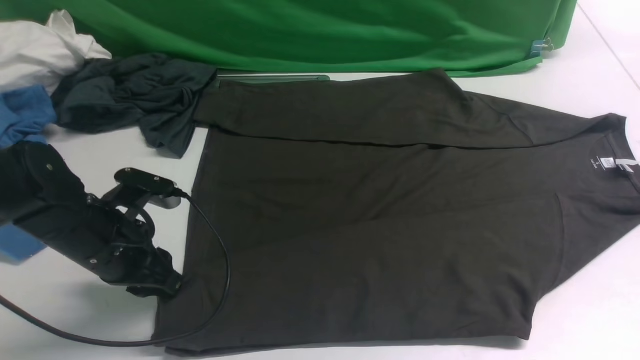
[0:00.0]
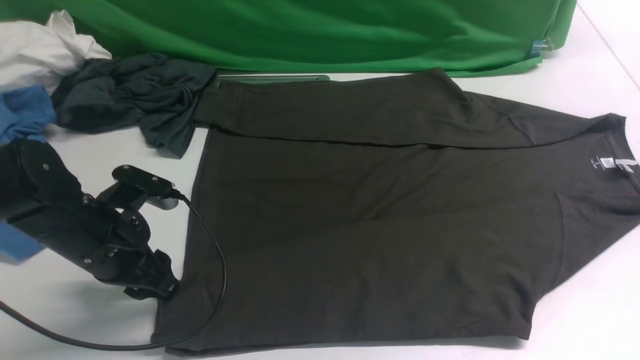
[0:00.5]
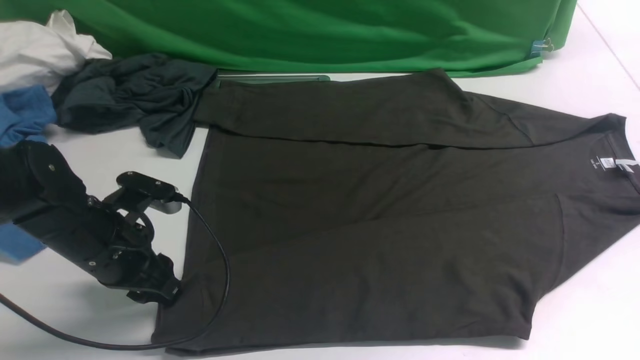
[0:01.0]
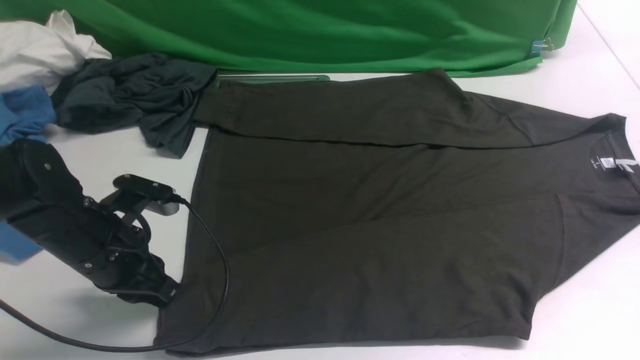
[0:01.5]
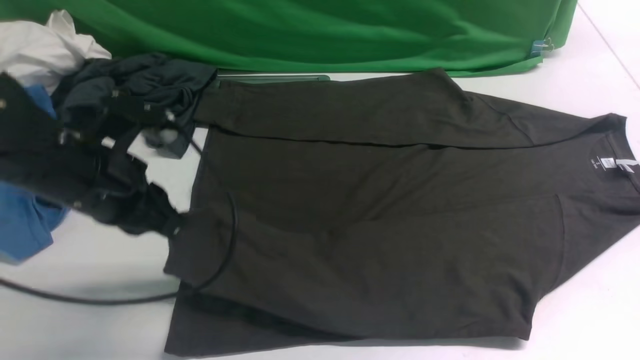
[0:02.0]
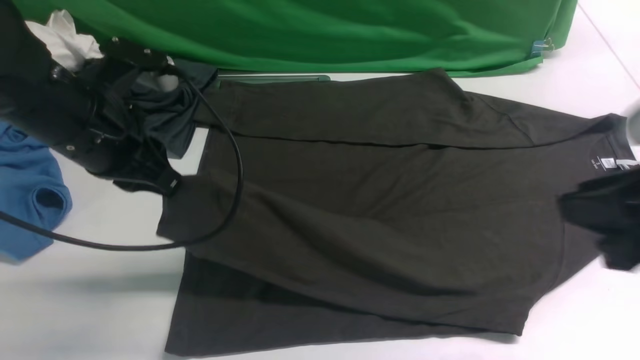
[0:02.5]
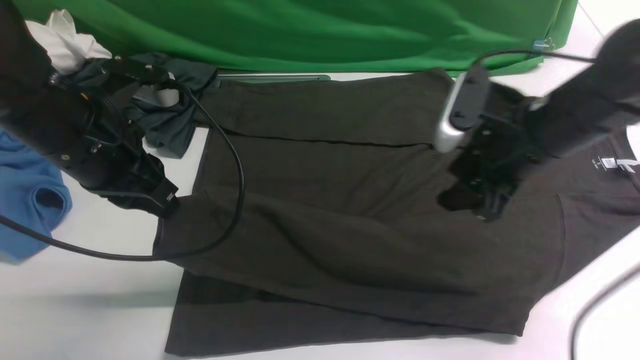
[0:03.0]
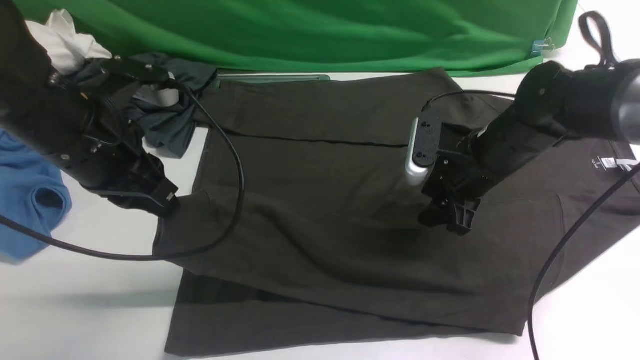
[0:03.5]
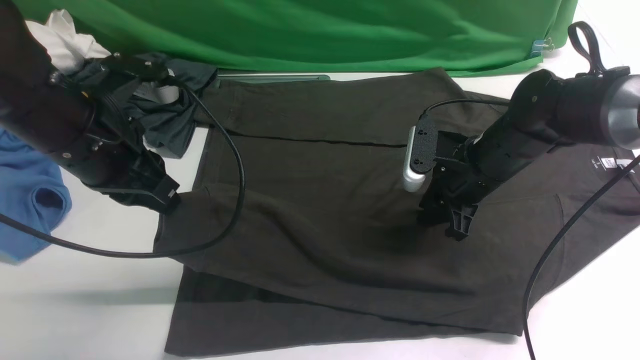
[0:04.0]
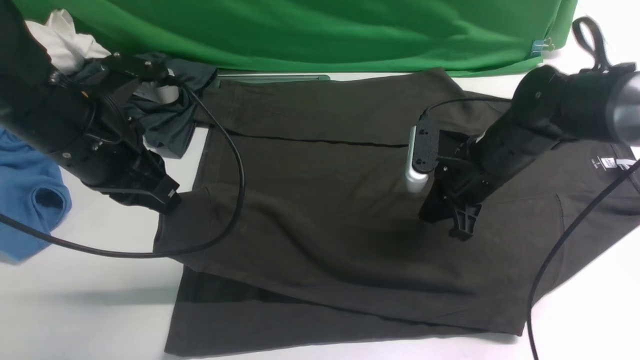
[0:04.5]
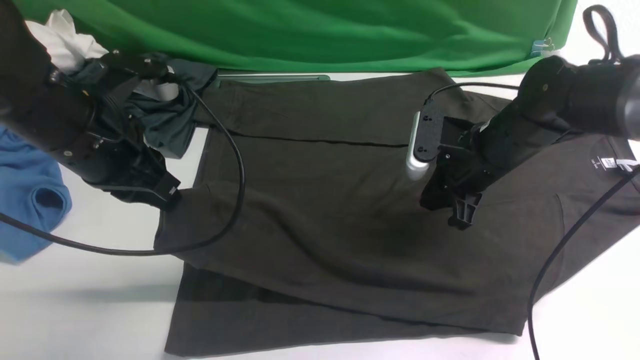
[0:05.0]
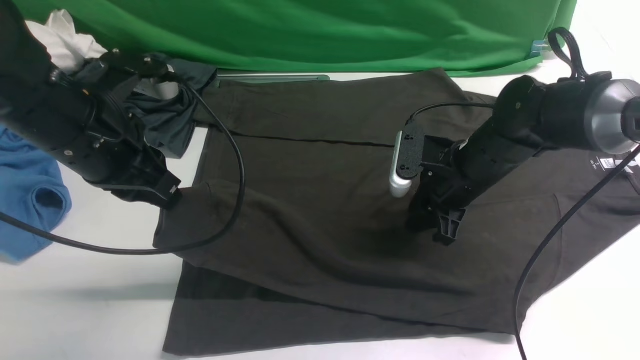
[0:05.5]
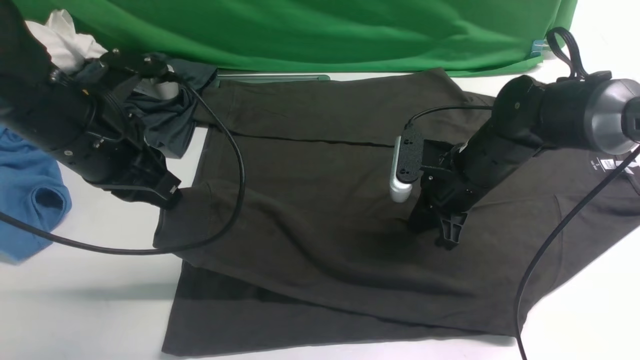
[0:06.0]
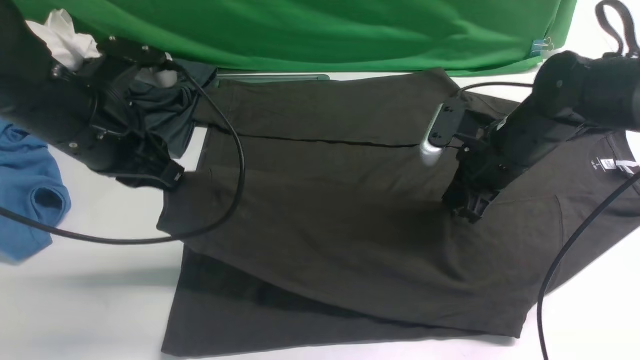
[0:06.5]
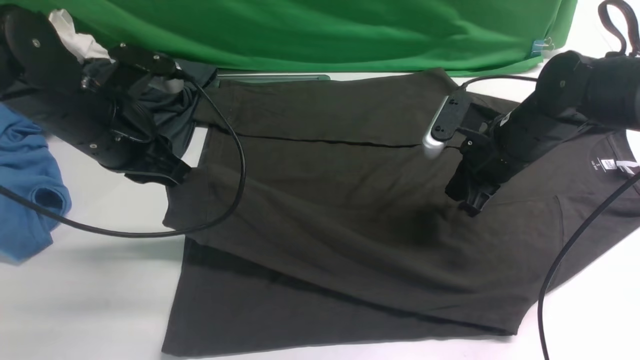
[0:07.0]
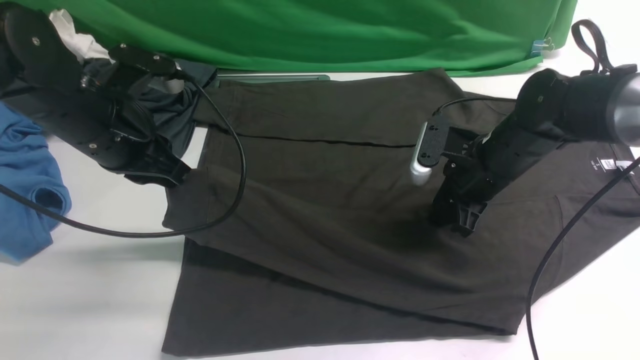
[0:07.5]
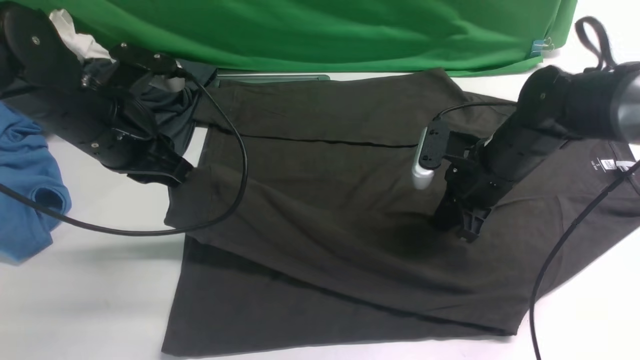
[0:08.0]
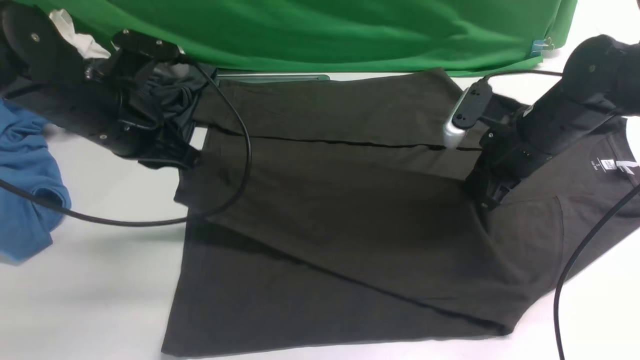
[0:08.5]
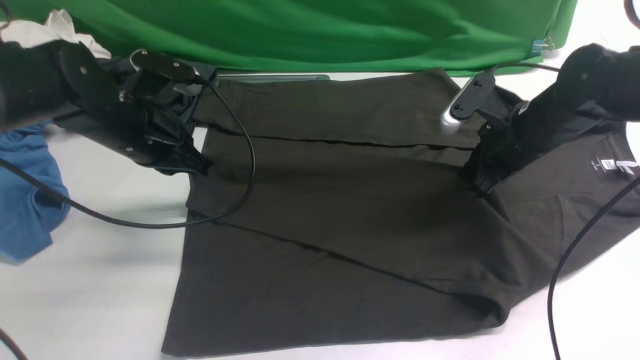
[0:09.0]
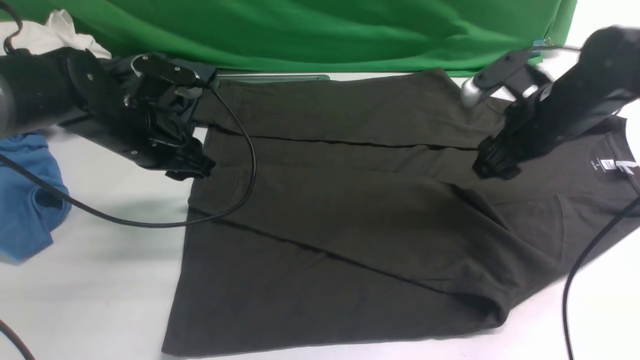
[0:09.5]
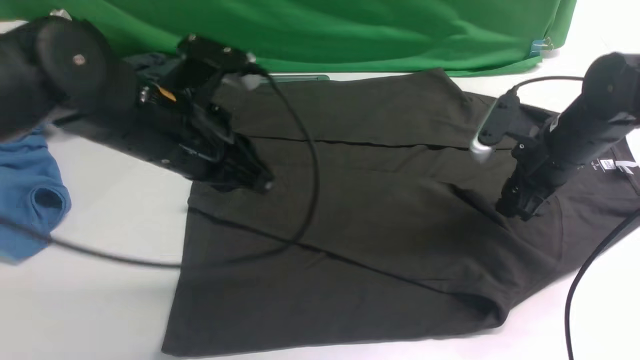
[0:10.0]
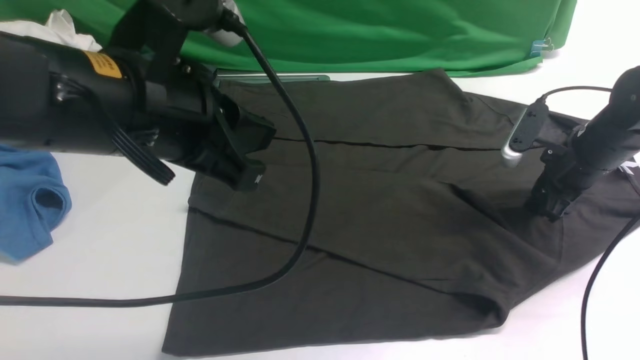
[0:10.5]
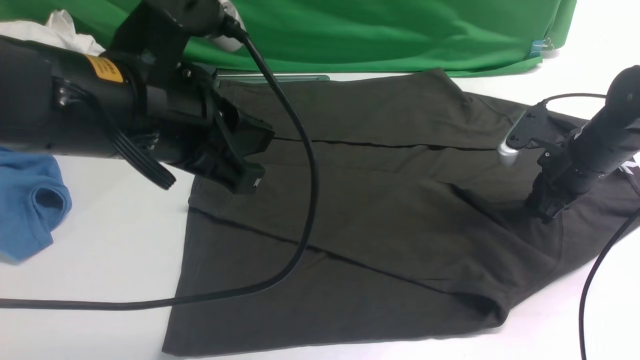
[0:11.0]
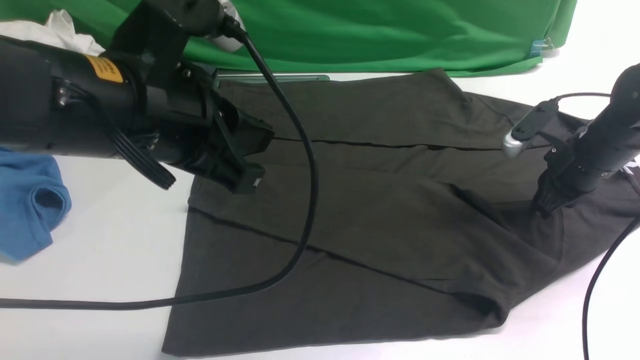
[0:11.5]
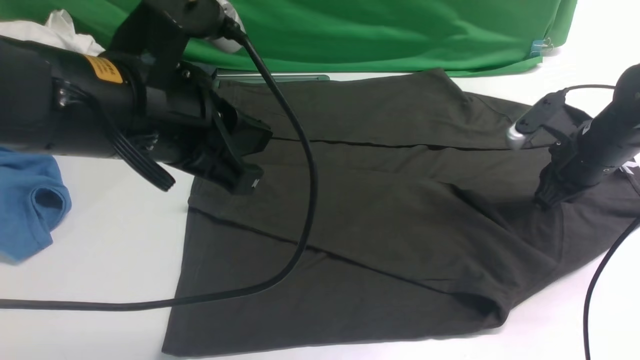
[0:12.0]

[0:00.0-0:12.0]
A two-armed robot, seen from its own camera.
Step, 0:01.5 to 0:09.5: use the left arm to drag and place the cuff at the centered position on the left edge of the fabric.
0:00.0 to 0:02.0: The left gripper goes approximately 10 cm upward, and closes.
0:02.0 to 0:04.0: The right gripper shifts roughly 35 cm forward and downward, and opens, then closes once more.
0:04.0 to 0:06.0: There are only small adjustments of the grippers.
0:06.0 to 0:08.0: The right gripper opens, then closes again.
0:08.0 to 0:10.0: Both grippers travel together to the right, some 5 cm. The right gripper opens up. The left gripper opens and closes again.
0:10.0 to 0:12.0: The right gripper closes; the left gripper heads backward and upward, covering roughly 10 cm.

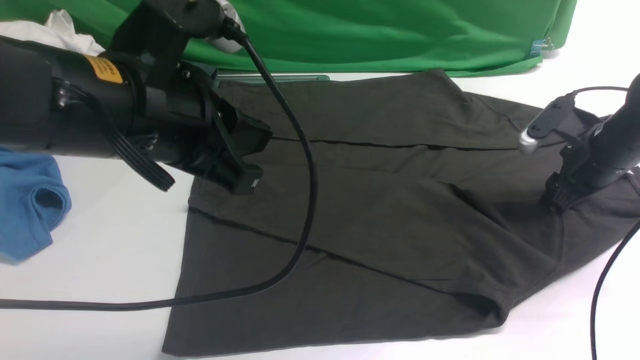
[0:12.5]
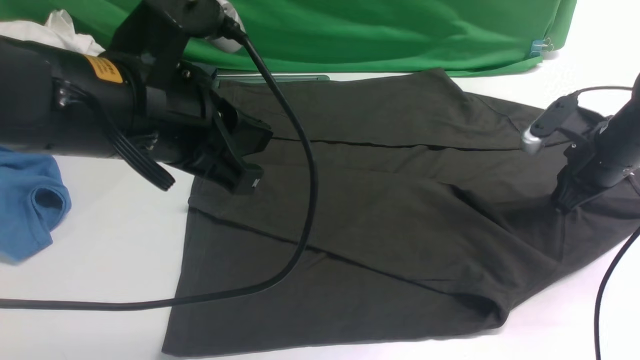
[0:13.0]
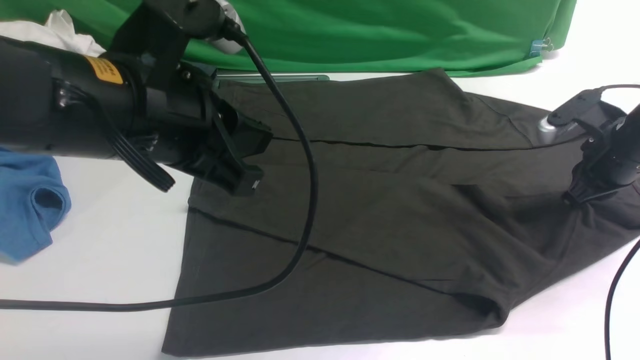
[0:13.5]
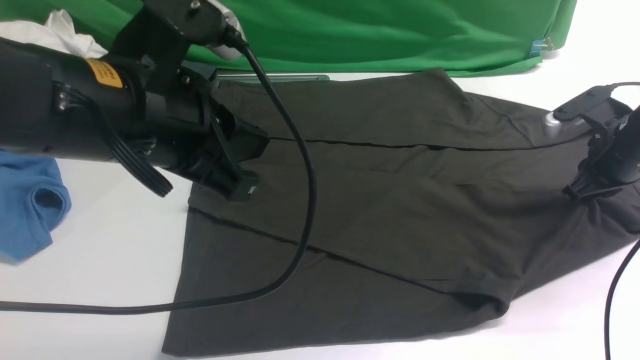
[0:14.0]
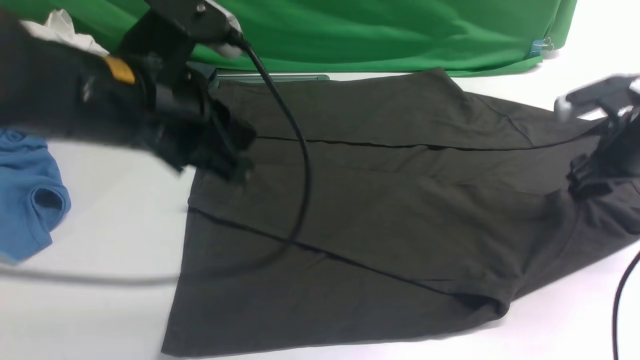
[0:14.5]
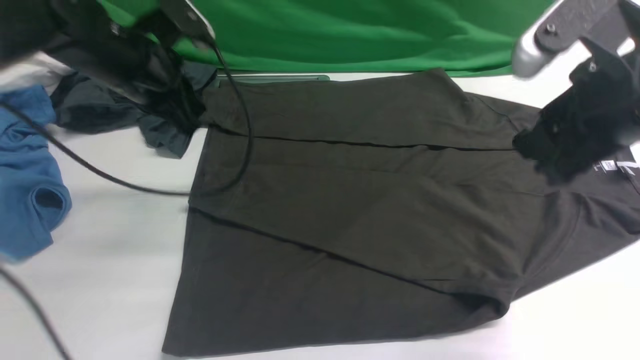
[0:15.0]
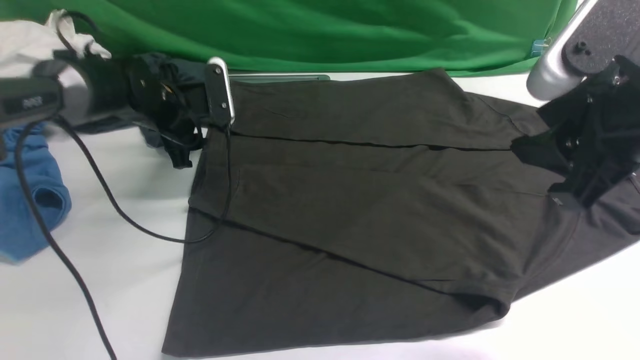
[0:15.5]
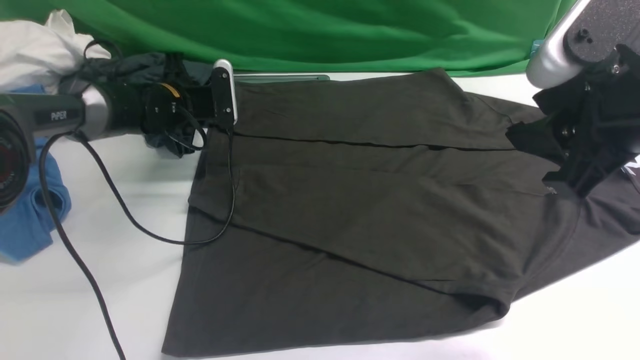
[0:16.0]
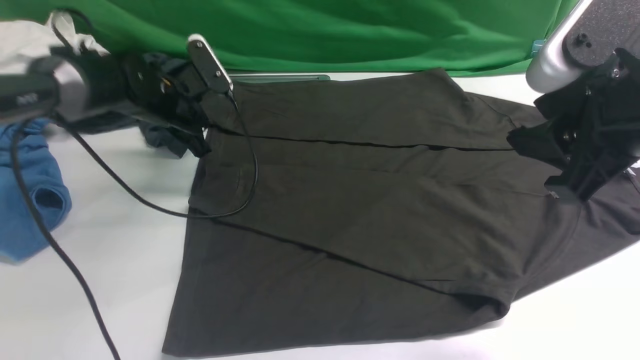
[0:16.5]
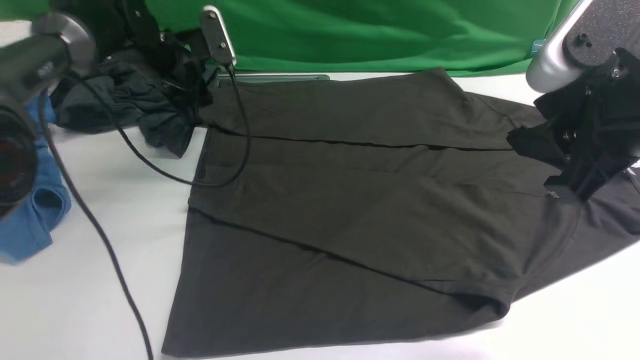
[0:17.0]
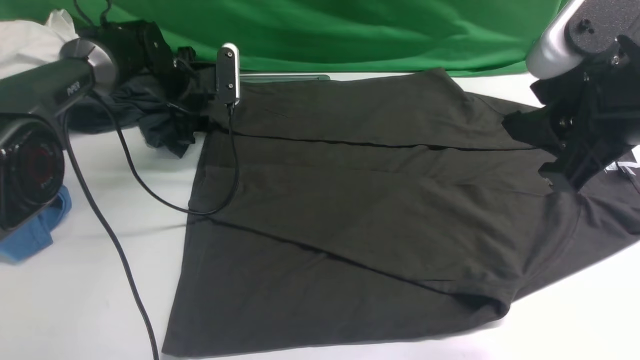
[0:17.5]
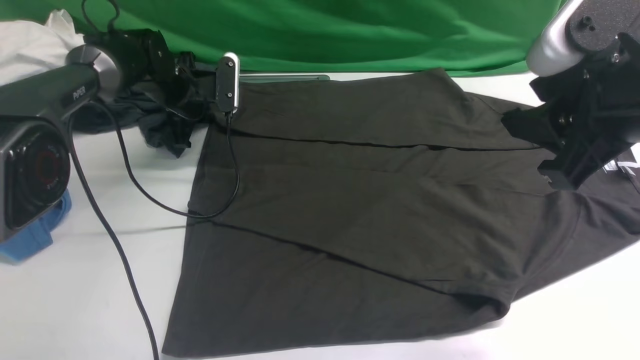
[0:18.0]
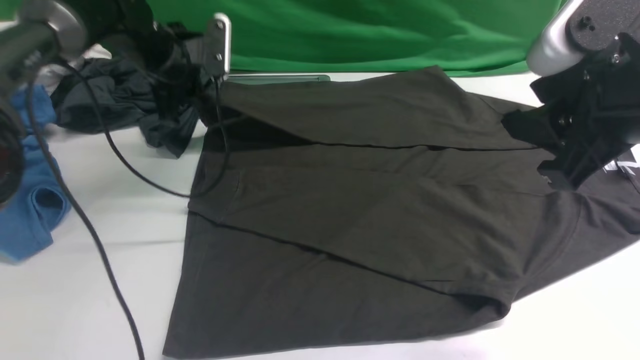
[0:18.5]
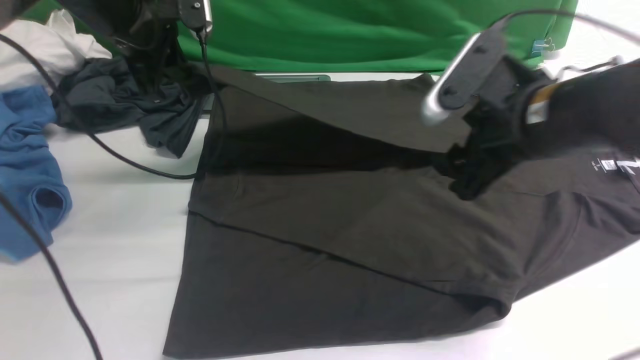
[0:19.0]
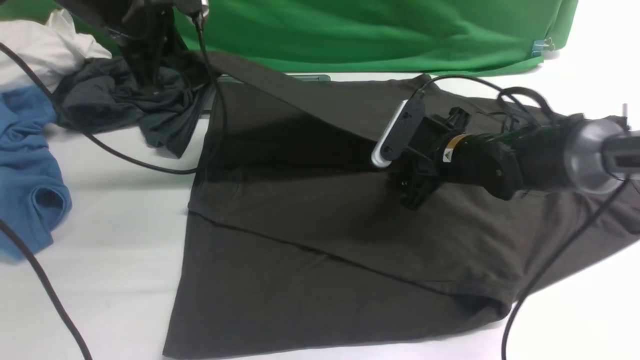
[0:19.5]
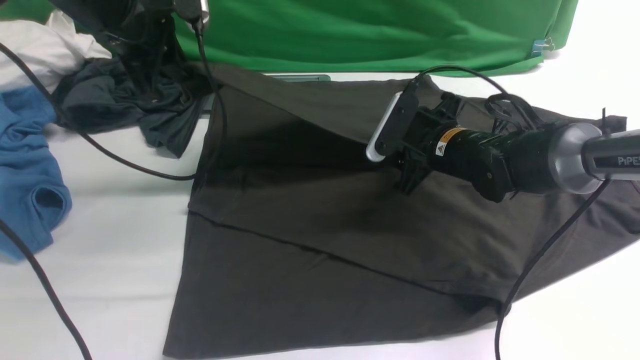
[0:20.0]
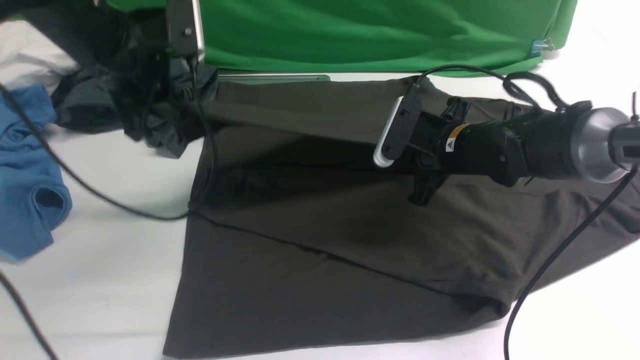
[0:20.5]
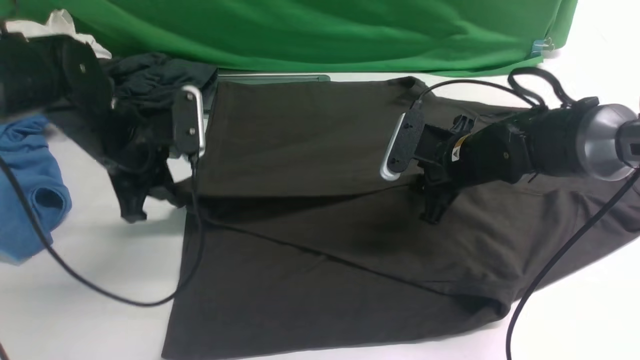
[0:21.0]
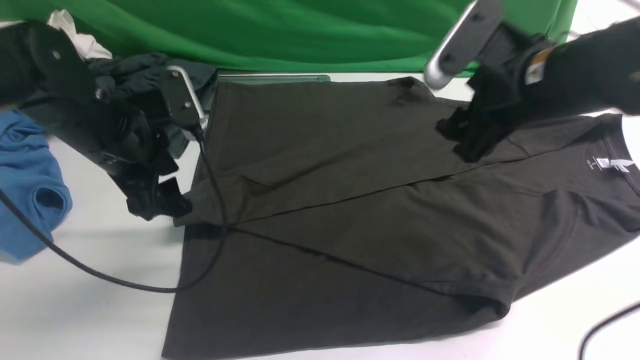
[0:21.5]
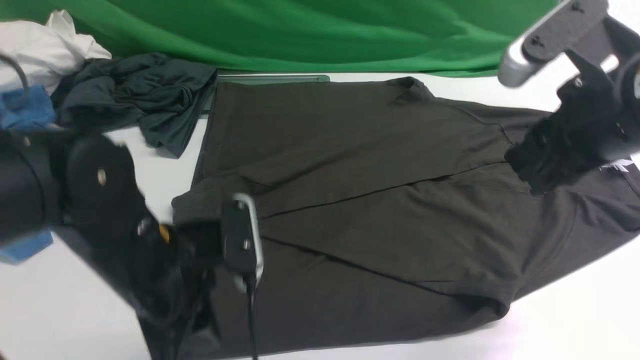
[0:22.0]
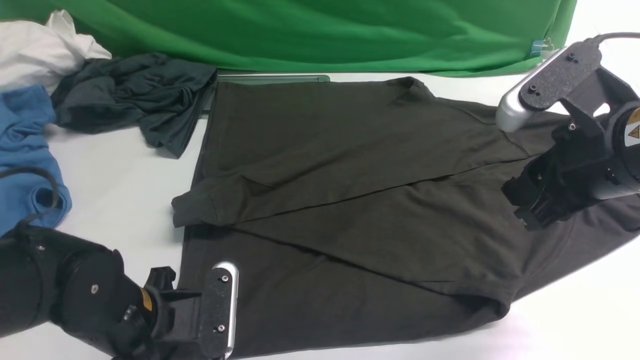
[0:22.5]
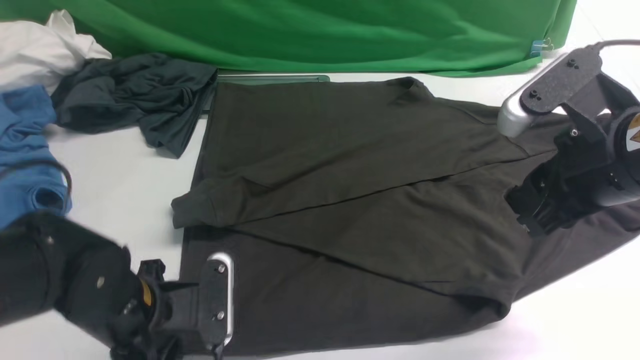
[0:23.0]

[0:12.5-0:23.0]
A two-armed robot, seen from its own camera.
Step, 0:12.5 to 0:18.0: use the left arm to clamp the cuff farthest from it.
Step, 0:18.5 to 0:21.0: use the left arm to drag and drop the cuff onto the cuff closest to the left arm.
0:12.5 to 0:14.5: The right gripper moves upward, about 5 cm, and closes, then reopens; the left gripper shifts by about 5 cm.
0:14.5 to 0:16.5: The left gripper travels forward and downward by about 25 cm, and opens, then closes once more, while the right gripper shifts about 25 cm backward, upward and to the left.
0:16.5 to 0:19.0: The right gripper goes some 15 cm downward and forward. The left gripper shifts about 10 cm upward, and opens and closes again.
0:19.0 to 0:21.0: The left gripper goes some 10 cm backward and downward. The right gripper shifts some 10 cm downward and forward, and closes.
0:21.0 to 0:23.0: The right gripper moves backward and upward, approximately 20 cm. Meanwhile the left gripper moves backward, about 15 cm, and opens, then closes once more.
